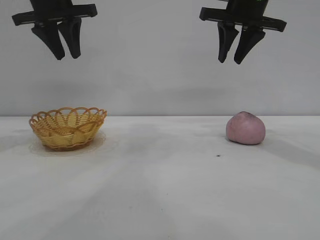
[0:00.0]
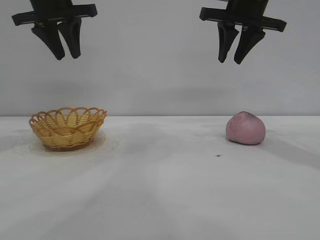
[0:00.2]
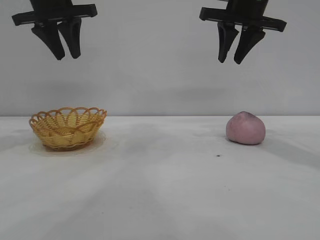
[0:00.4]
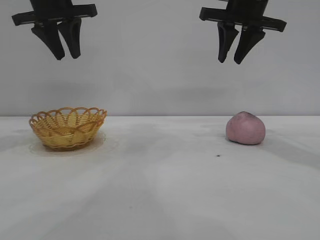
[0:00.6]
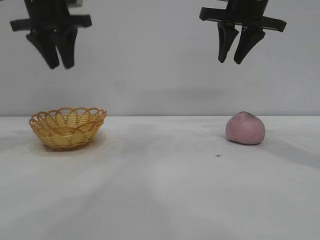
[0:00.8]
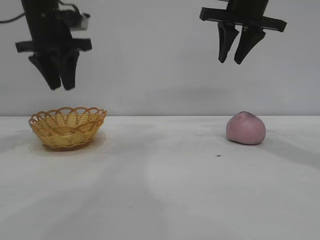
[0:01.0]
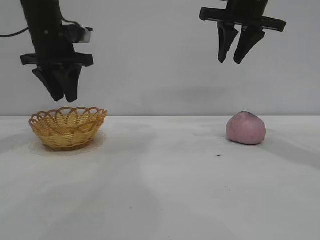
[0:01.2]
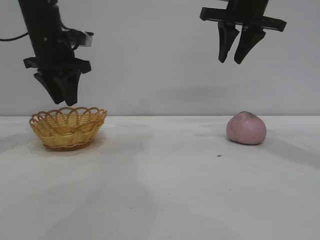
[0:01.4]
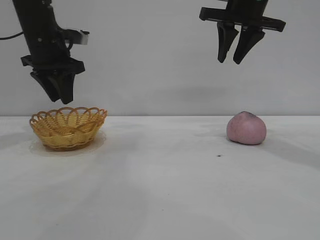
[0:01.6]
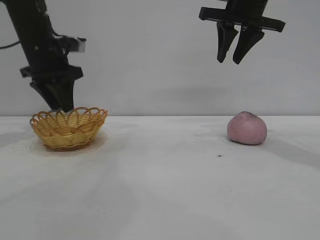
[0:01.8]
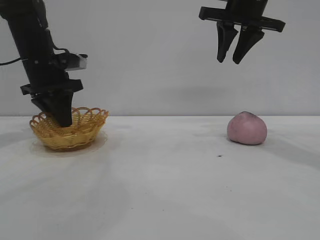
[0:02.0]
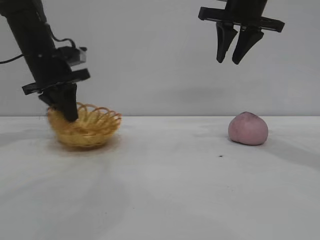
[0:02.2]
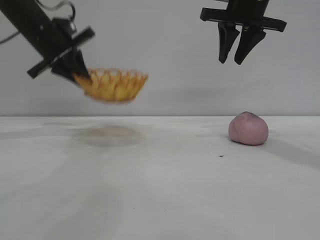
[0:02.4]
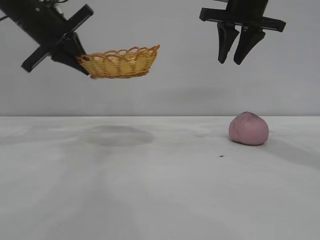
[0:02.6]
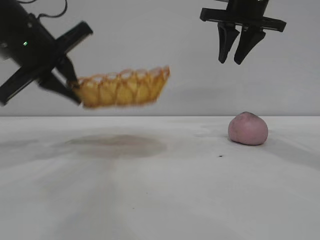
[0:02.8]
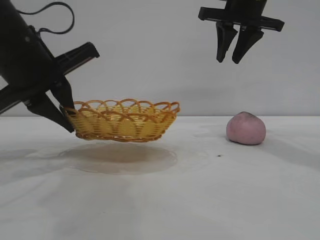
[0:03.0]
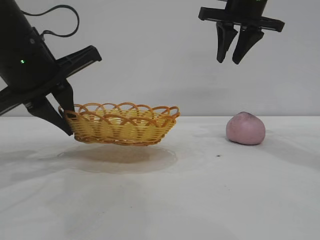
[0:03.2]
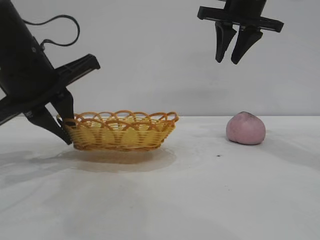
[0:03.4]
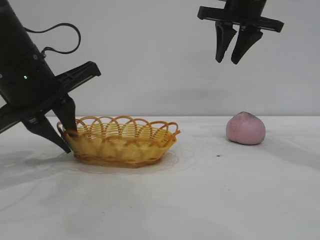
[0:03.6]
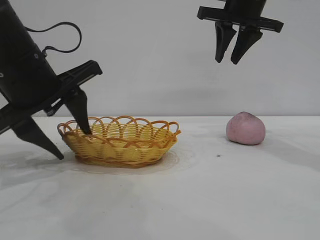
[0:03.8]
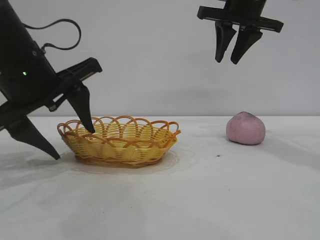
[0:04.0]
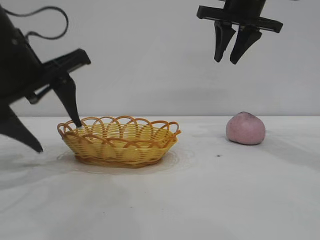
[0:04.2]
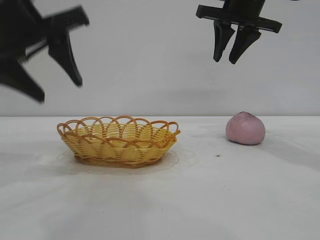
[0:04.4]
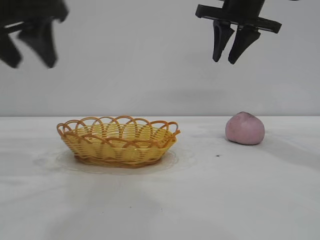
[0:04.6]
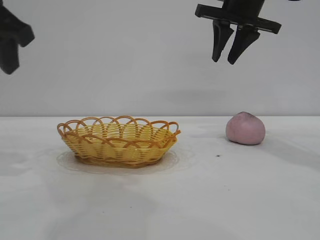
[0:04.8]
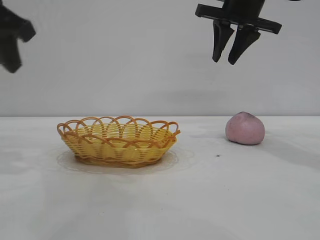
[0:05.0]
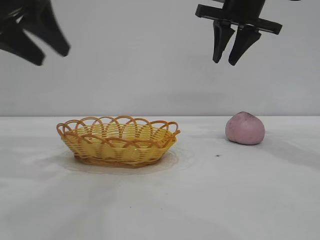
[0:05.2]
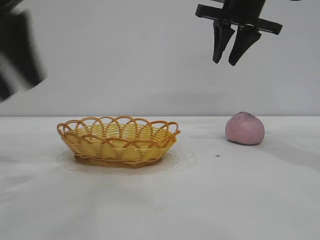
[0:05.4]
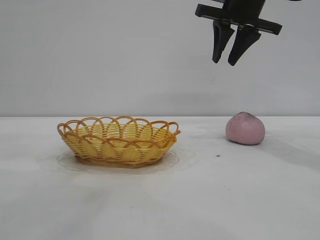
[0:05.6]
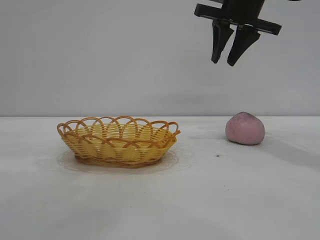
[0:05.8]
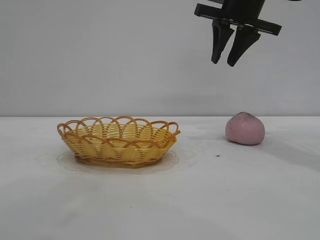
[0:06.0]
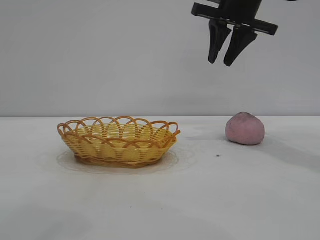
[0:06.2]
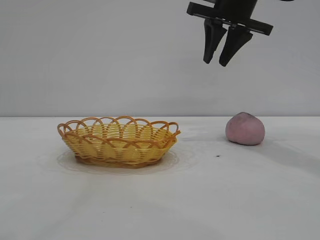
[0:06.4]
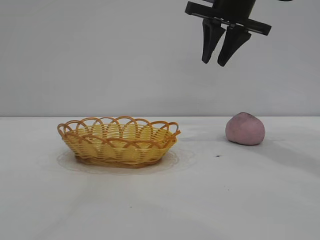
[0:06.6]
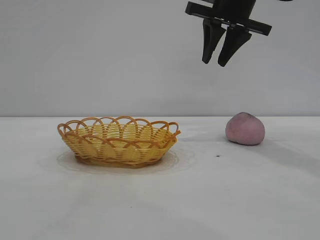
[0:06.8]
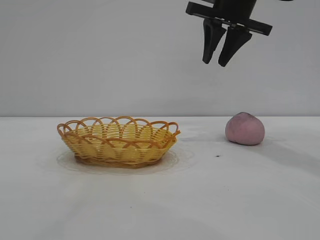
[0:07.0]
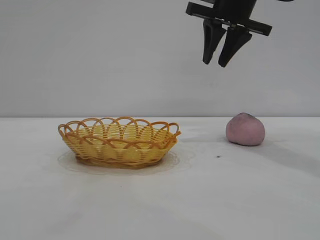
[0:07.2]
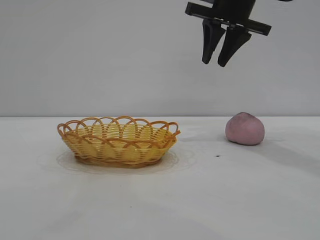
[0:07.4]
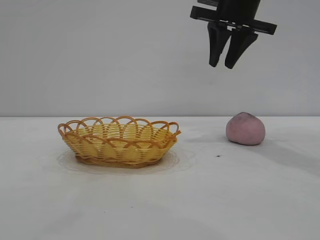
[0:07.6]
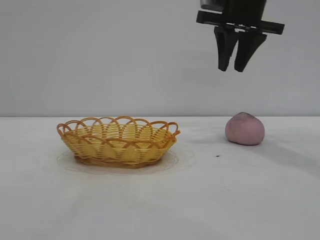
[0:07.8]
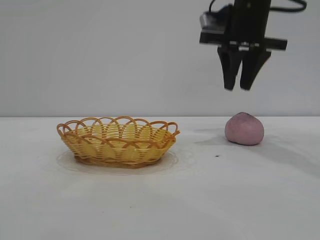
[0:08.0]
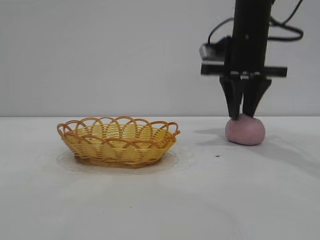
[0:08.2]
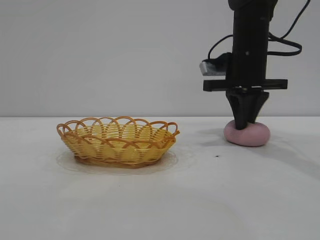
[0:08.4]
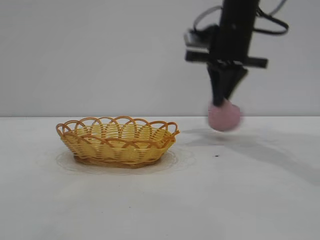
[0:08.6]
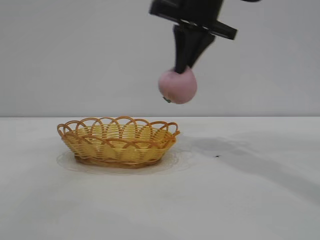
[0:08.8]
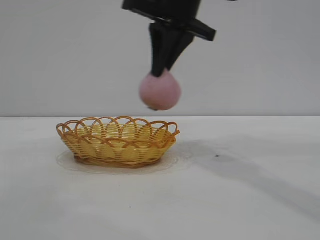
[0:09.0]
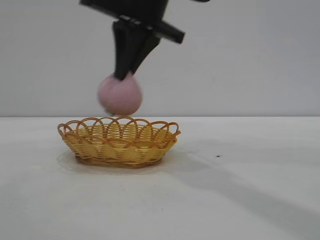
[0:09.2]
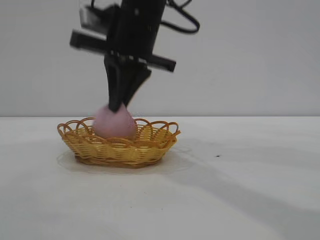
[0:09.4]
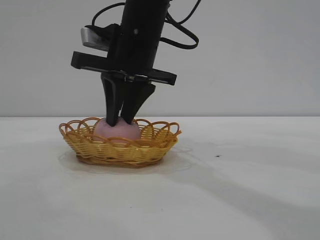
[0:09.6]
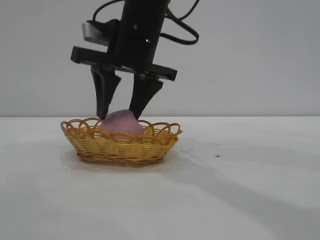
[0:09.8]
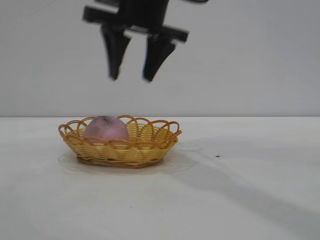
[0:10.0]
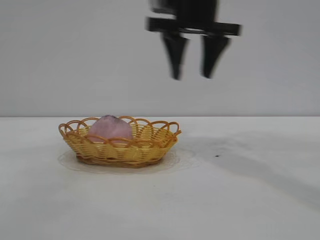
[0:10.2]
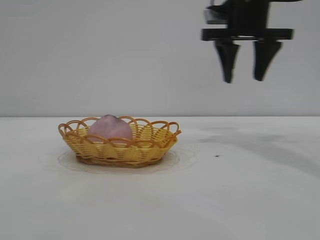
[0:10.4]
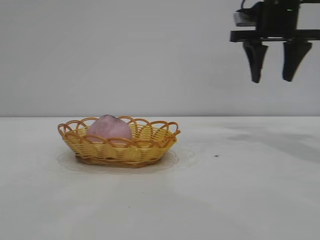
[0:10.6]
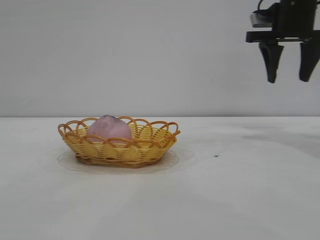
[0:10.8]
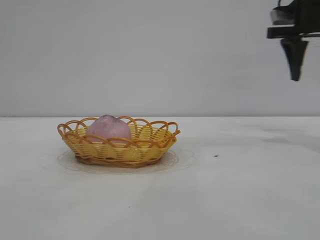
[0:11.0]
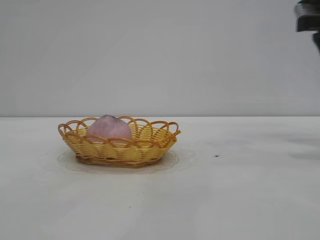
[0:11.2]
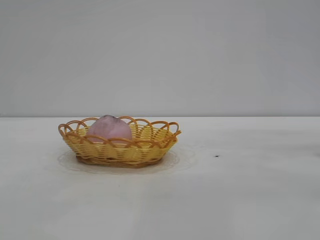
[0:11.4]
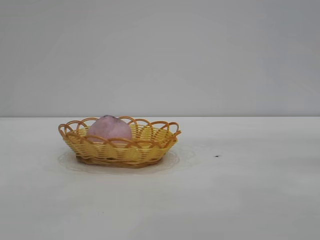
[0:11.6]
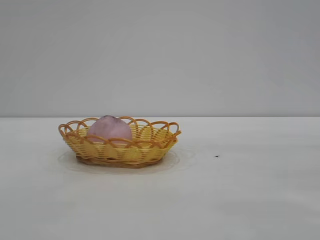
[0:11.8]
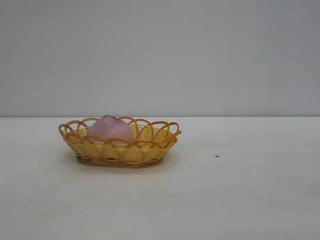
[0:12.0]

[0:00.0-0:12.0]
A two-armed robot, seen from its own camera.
Task of the whole recording: pick up the peach and put it into the basket.
Step, 0:00.0 to 0:04.4: Move the basket to the center of view.
Step, 0:04.6 to 0:08.4: Pick up the peach.
Step, 0:08.8 to 0:10.0: place the peach into the basket.

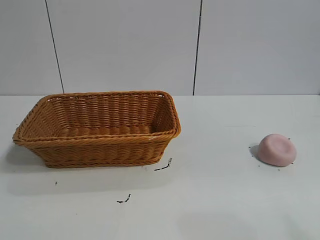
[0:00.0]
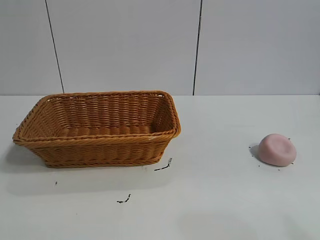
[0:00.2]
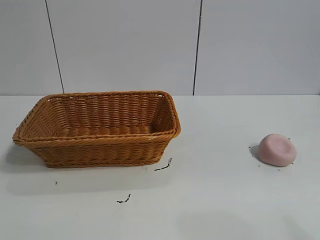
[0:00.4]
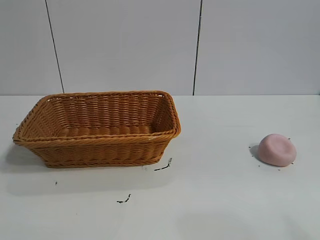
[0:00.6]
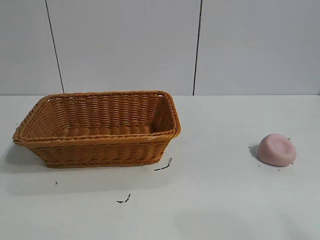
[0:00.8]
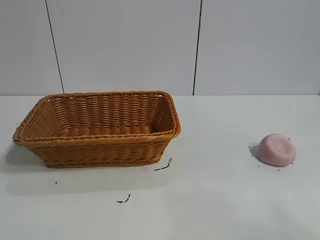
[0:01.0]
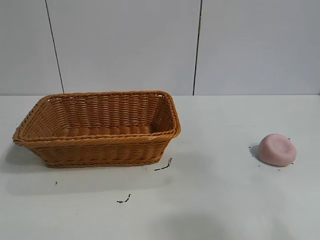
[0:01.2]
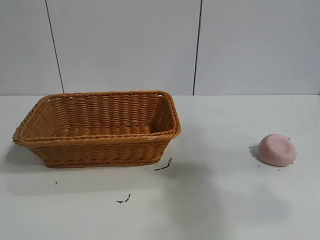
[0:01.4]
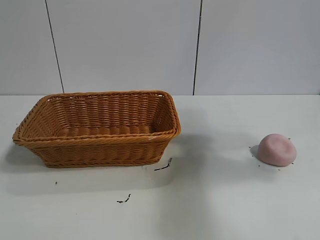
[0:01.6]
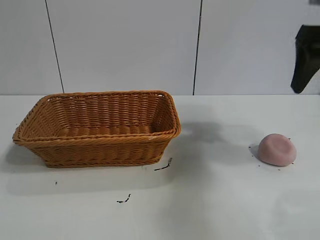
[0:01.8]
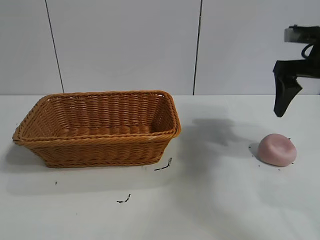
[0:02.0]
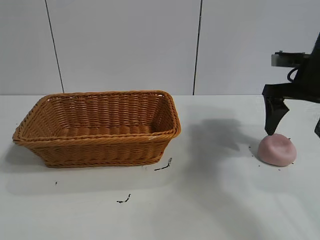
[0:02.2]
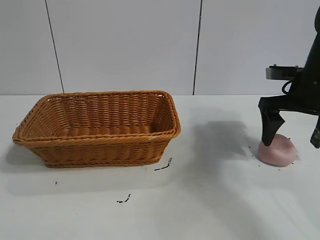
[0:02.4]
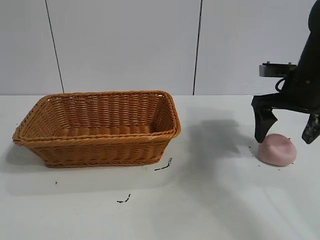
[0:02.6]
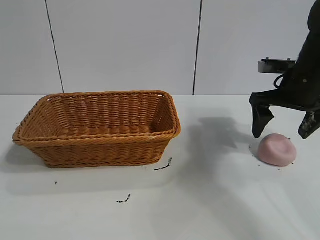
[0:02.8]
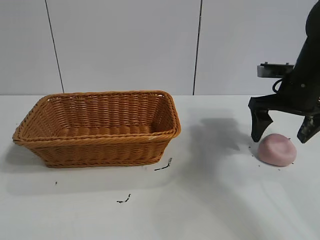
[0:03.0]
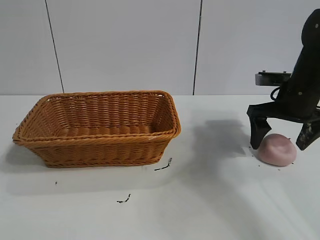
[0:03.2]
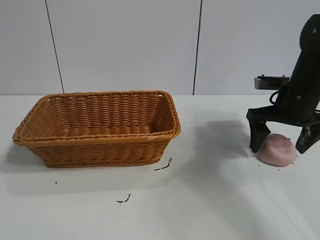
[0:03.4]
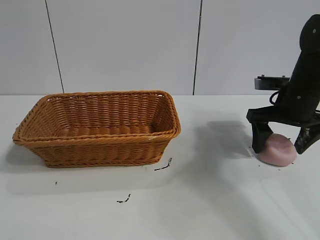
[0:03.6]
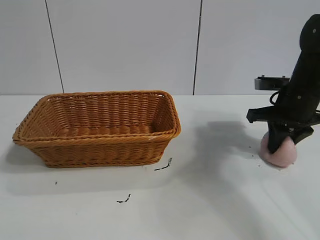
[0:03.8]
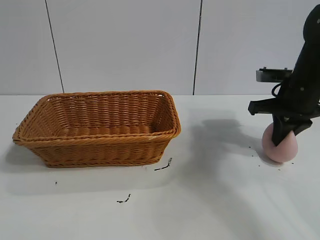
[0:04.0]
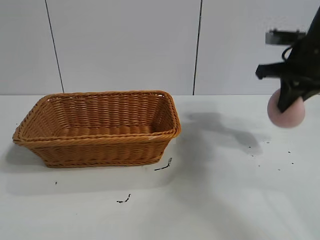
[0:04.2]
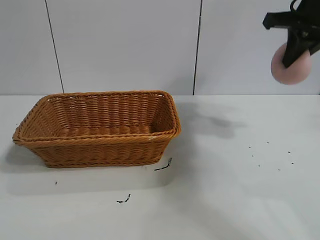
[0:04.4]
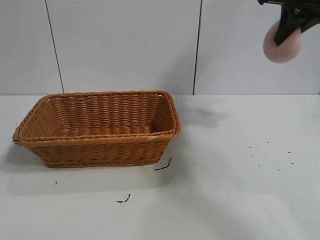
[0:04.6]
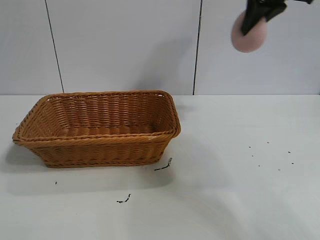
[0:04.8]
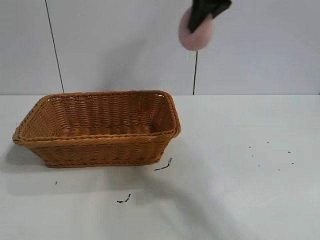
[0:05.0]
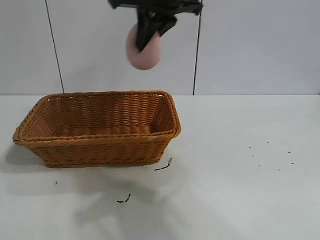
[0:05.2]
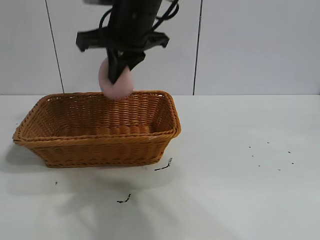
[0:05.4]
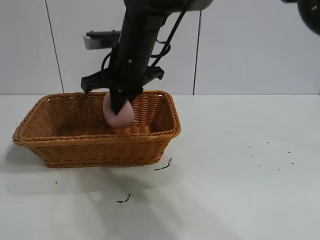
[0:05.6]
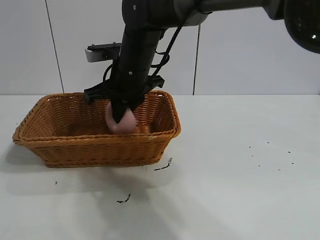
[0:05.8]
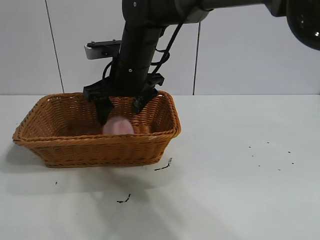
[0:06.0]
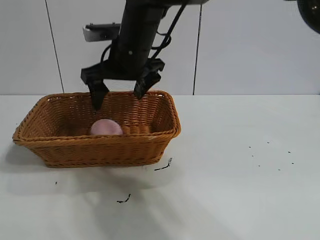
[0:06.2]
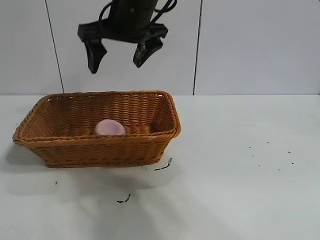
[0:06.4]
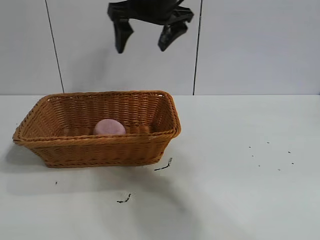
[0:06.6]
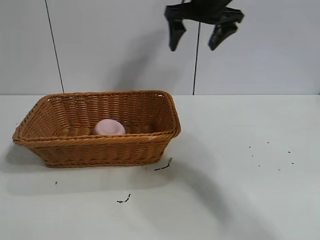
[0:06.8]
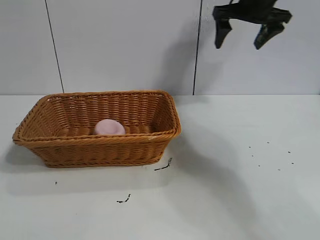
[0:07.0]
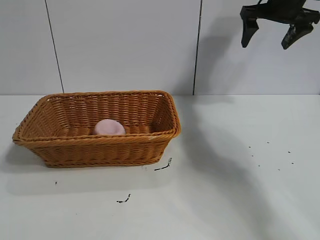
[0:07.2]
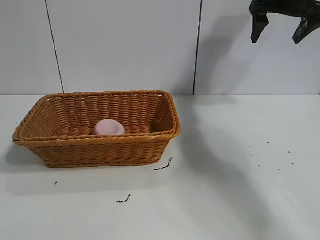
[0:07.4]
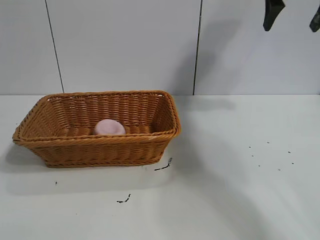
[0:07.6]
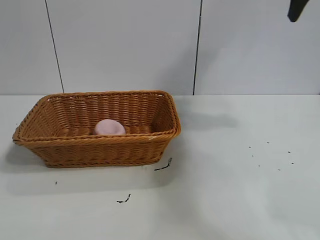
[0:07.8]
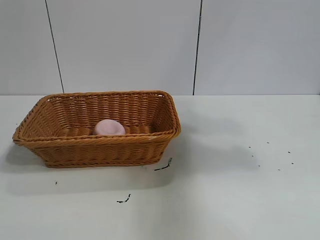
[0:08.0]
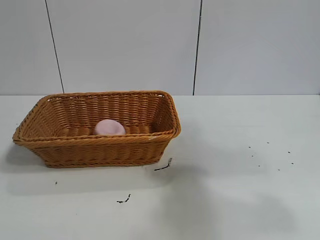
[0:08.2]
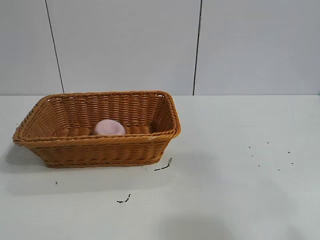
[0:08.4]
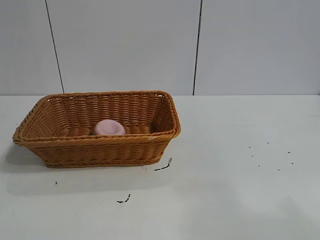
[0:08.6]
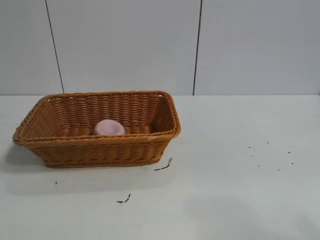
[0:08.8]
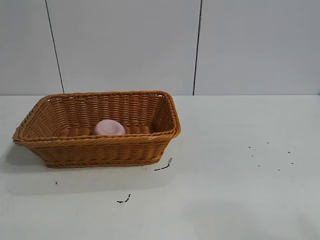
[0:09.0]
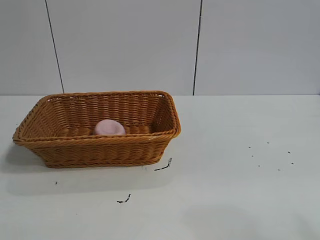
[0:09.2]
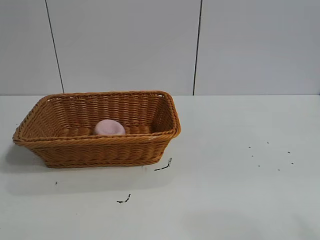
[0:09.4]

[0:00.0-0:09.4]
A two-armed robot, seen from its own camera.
Task of the whole recording: pick up the peach and put it into the basket.
Step, 0:01.0 to 0:04.0: Grasp the peach with right gripper.
Step, 0:04.2 to 0:06.2: Place the peach in the basket with right gripper.
